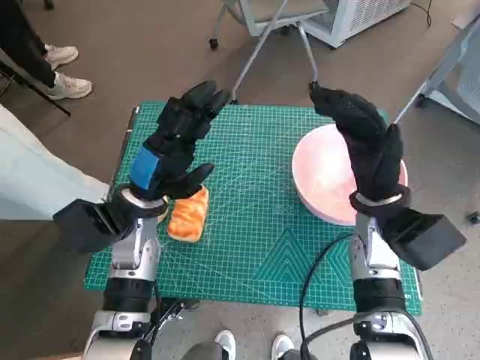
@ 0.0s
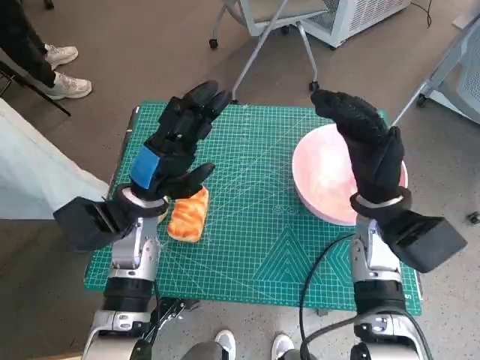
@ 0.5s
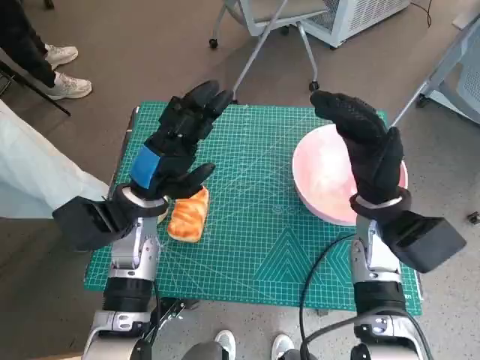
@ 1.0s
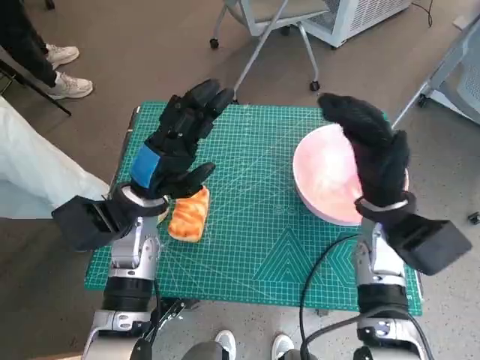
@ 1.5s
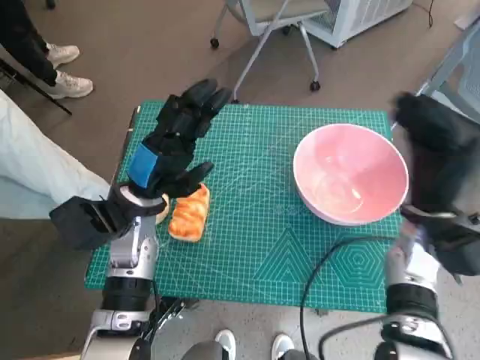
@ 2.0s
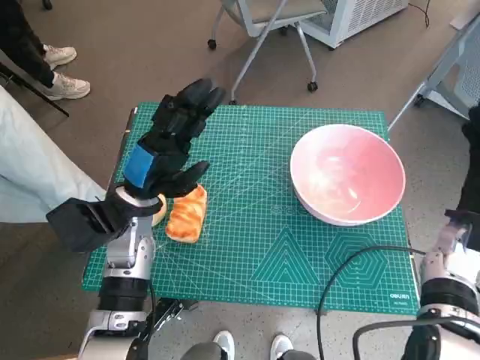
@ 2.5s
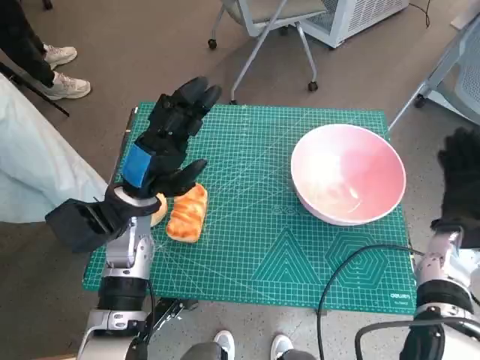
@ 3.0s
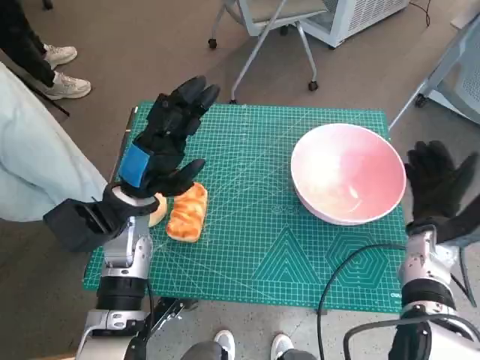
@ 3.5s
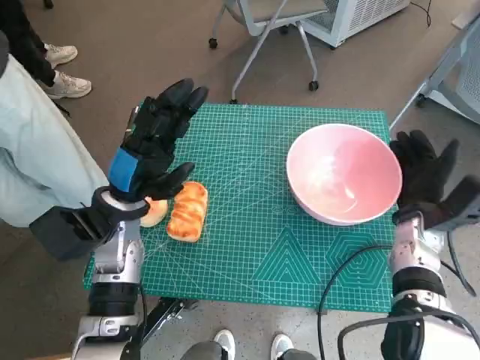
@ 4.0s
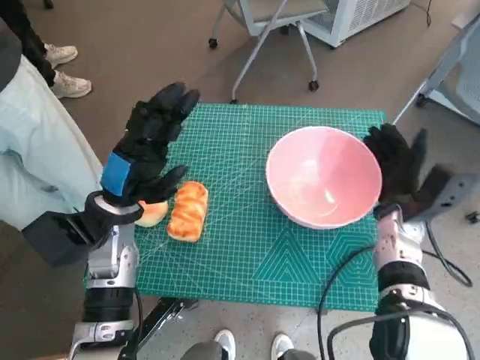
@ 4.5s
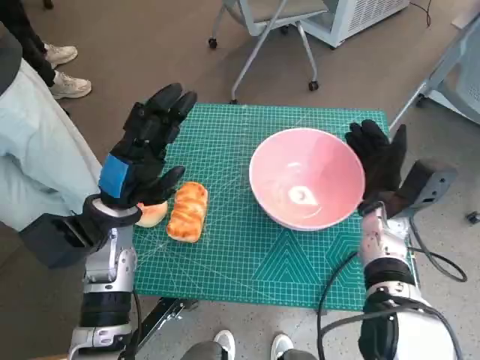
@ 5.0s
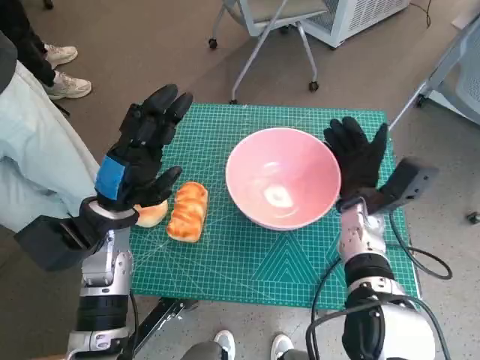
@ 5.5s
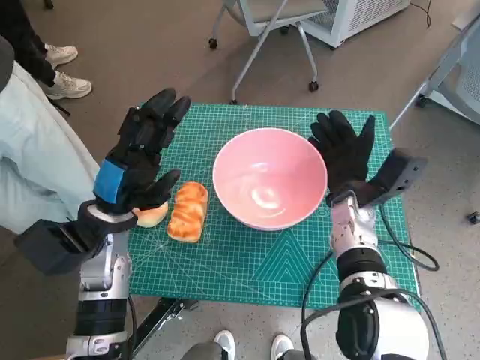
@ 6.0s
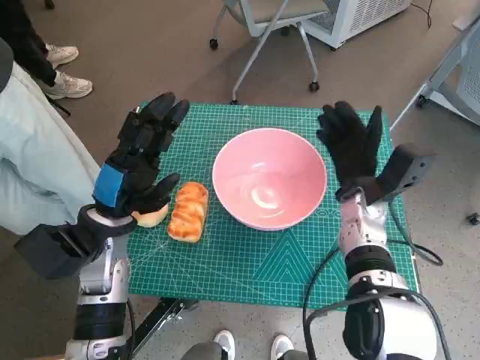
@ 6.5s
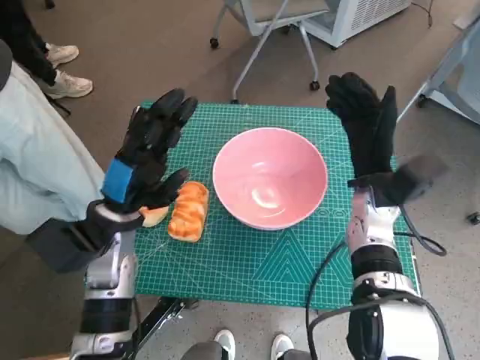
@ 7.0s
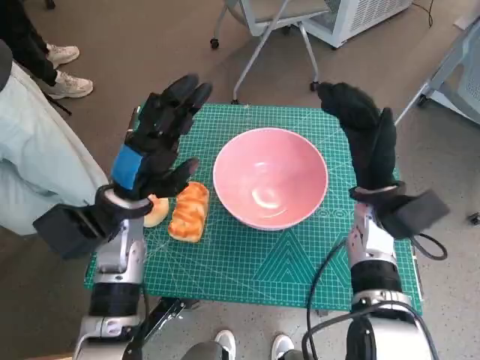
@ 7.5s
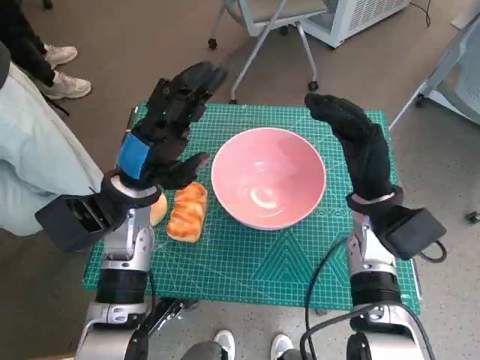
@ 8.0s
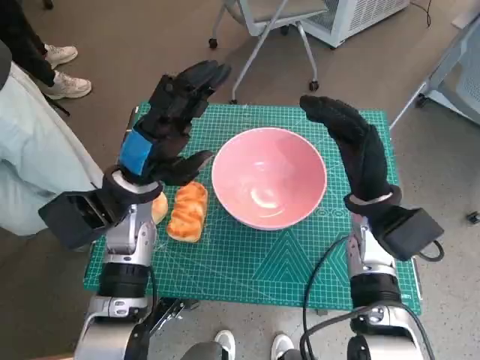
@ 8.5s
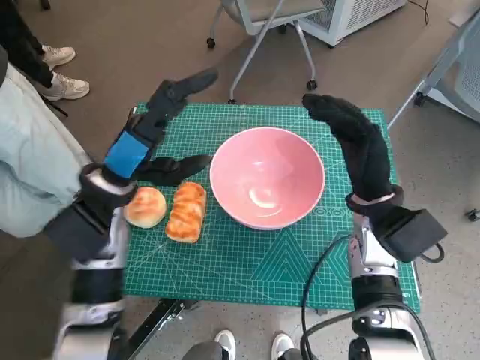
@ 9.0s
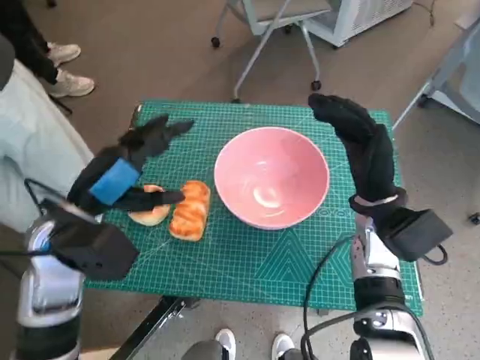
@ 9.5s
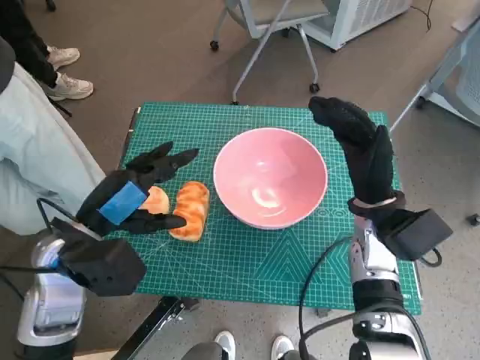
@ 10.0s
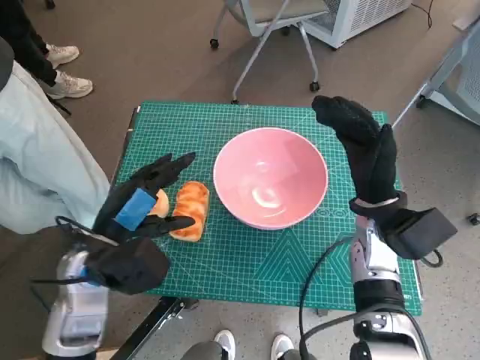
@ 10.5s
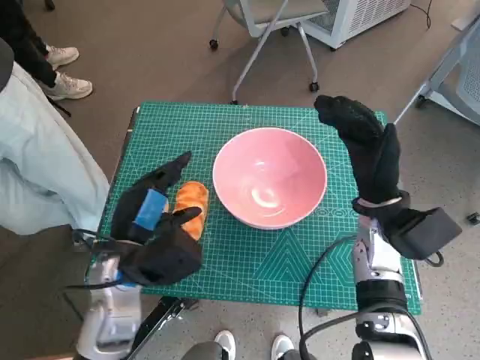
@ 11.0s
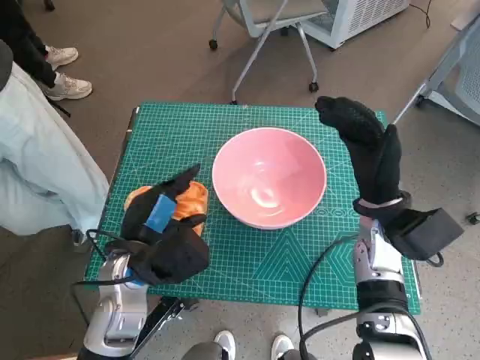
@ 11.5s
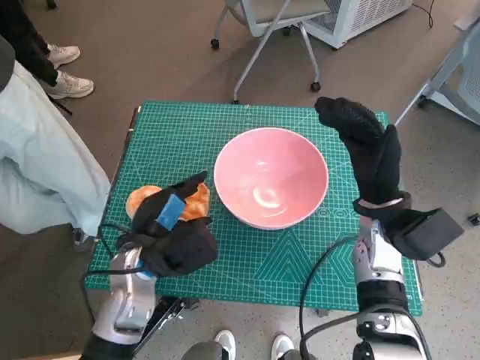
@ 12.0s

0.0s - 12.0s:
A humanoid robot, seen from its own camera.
Task of the whole recording: Push the bowl into the center of the table and put the bread into the bowl.
Step, 0.0s - 7.0s: Move the pink bowl to the center of table with right hand.
2.0s - 4.0s: The right hand moves some 5 cm.
4.0s - 6.0s: The right hand moves to the left, some 10 cm.
6.0s - 8.0s: The right hand changes place by about 5 cm.
8.0s - 10.0s: The left hand shifts roughly 5 cm backward.
10.0s - 12.0s: The left hand moves downward and to the right, about 10 cm.

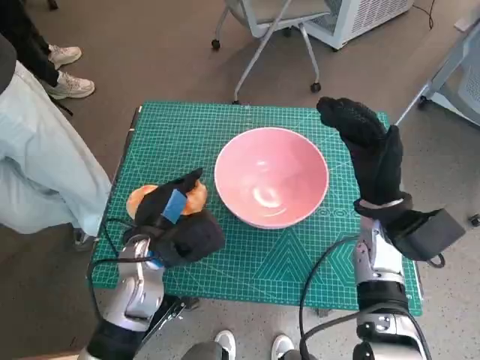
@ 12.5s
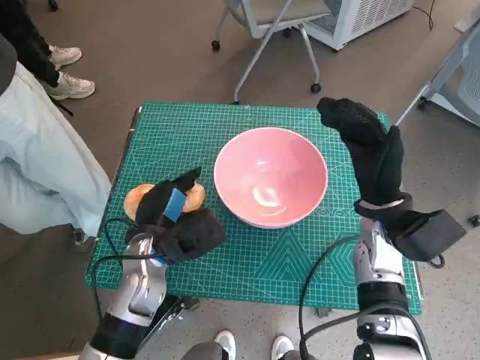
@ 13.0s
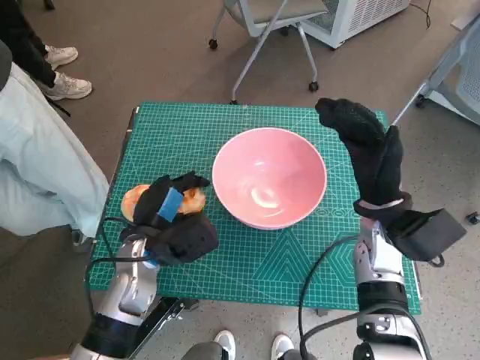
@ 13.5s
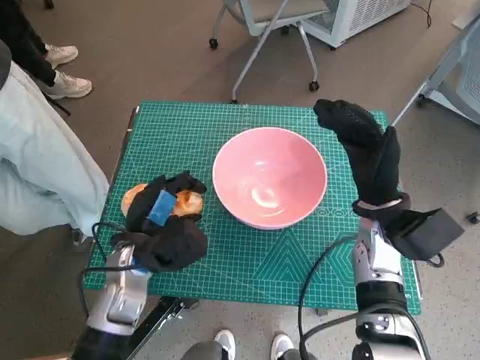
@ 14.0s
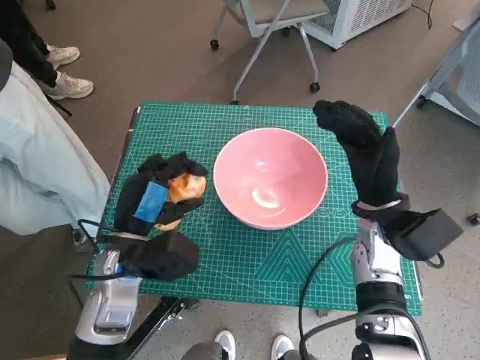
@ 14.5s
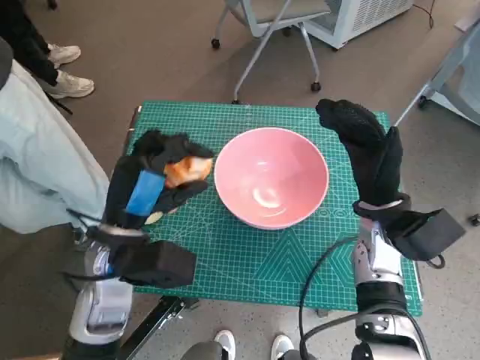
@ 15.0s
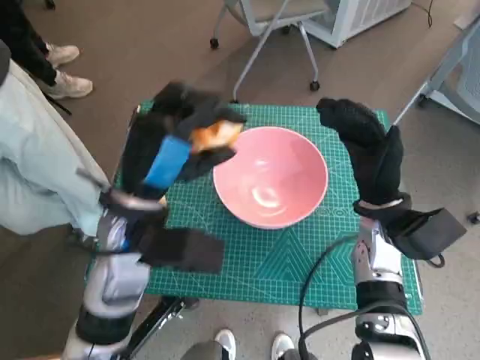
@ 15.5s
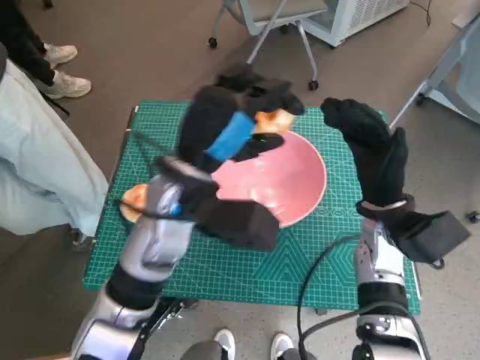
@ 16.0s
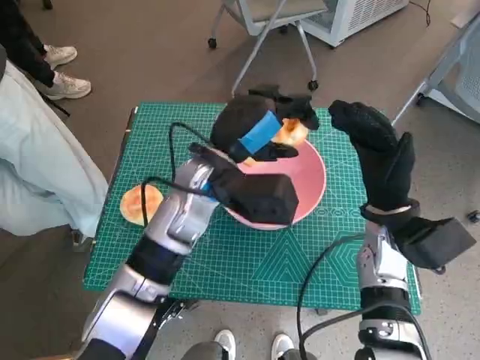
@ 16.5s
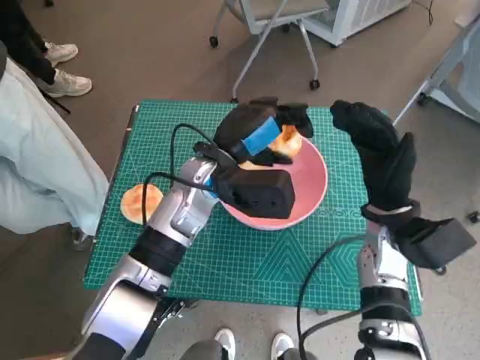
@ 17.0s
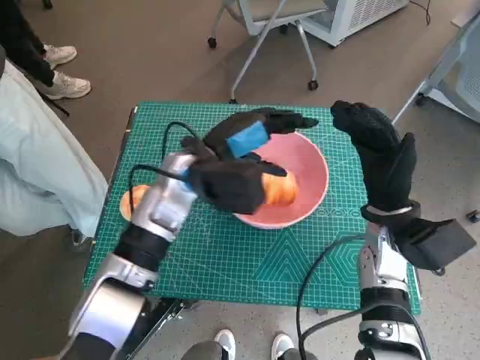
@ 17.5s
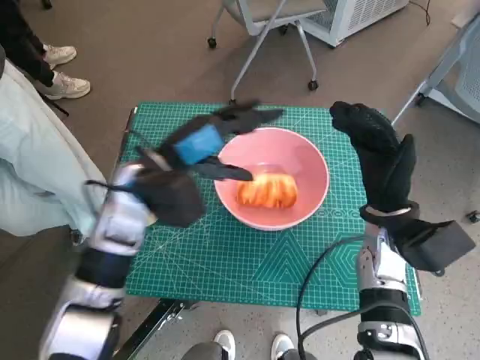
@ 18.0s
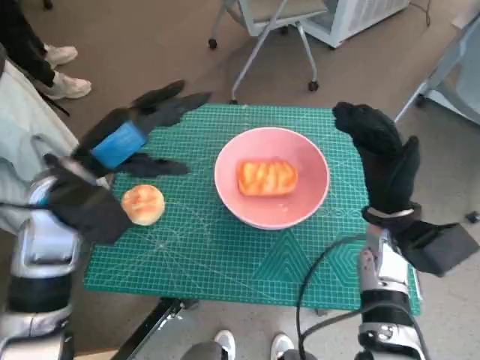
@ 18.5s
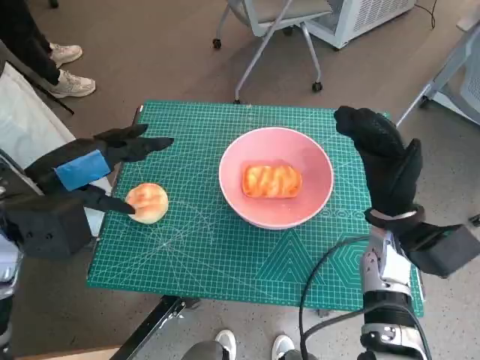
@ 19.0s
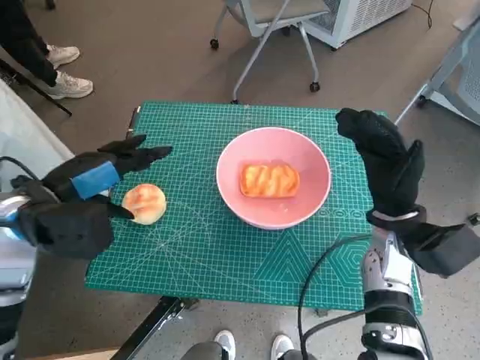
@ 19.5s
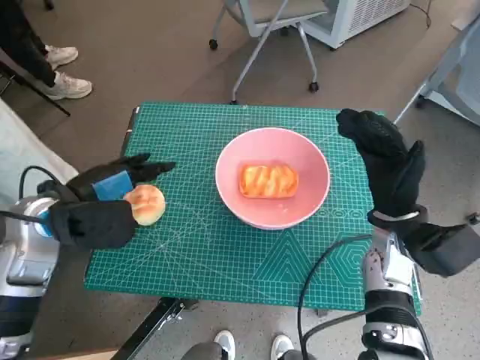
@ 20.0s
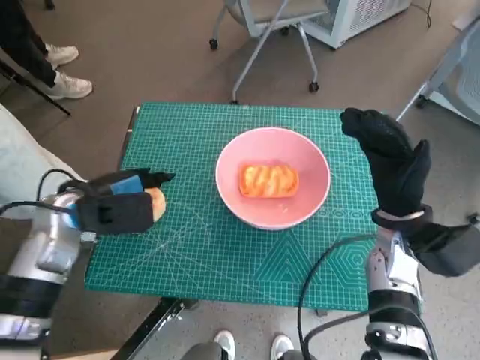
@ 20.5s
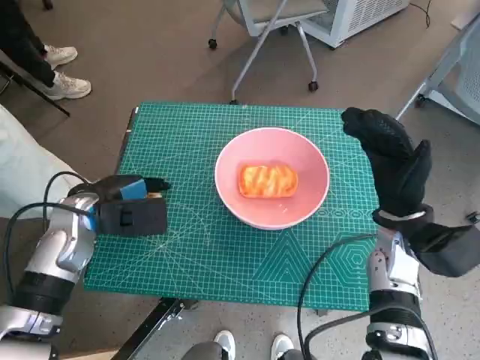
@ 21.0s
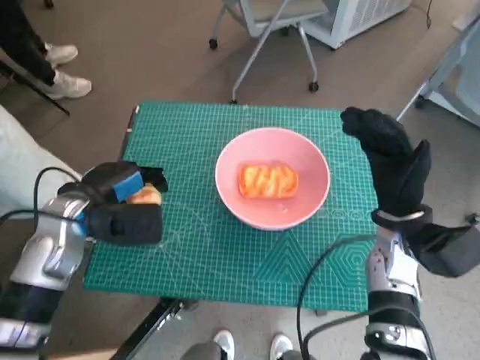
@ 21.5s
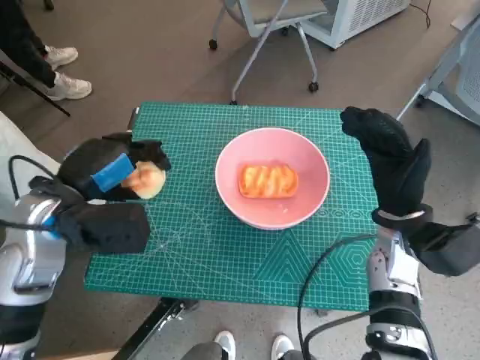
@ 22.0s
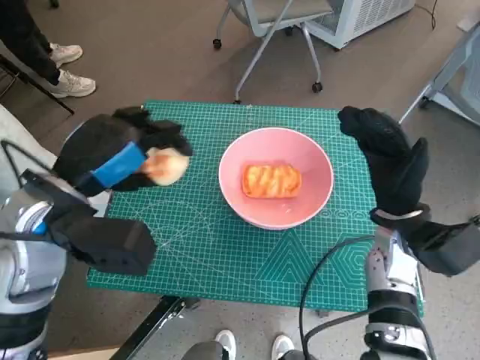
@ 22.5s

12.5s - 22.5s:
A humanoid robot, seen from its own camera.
Task of the whole recording: Push the bowl into the center of the table and put the bread into the bowl.
Step, 14.0s - 17.5s: Place the long bread in pink bowl with left hand.
Step, 18.0s - 21.0s: Grasp the round bread with left hand.
14.5s - 16.5s: The left hand moves to the right, forward and upward, roughly 15 cm.
16.5s - 18.5s: The left hand goes about 15 cm to the left.
18.5s - 20.5s: The left hand travels downward by about 5 cm.
20.5s - 22.5s: The left hand travels upward by approximately 10 cm.

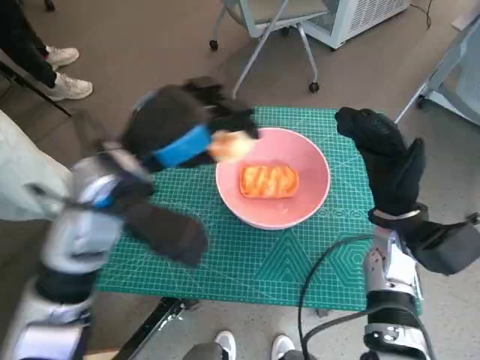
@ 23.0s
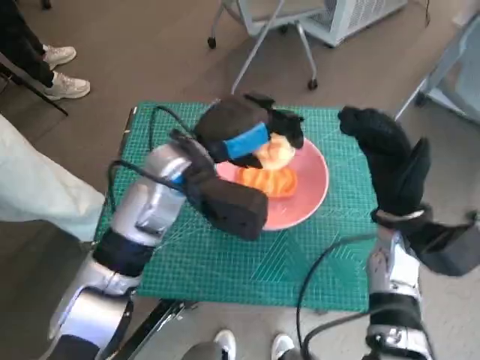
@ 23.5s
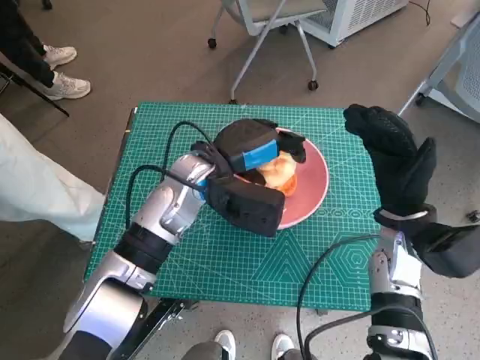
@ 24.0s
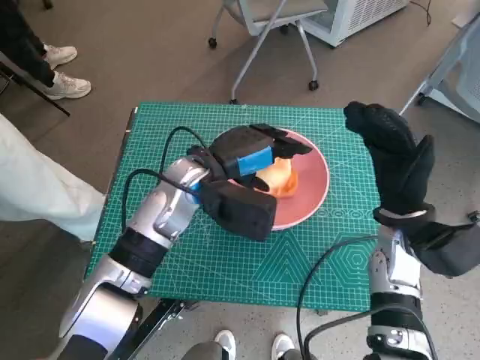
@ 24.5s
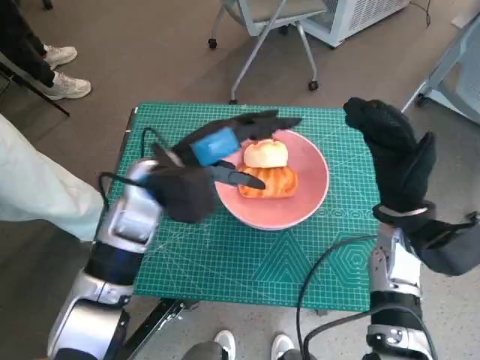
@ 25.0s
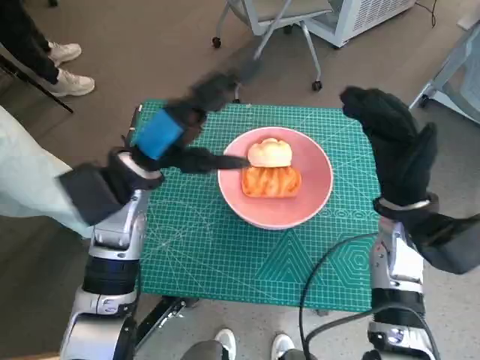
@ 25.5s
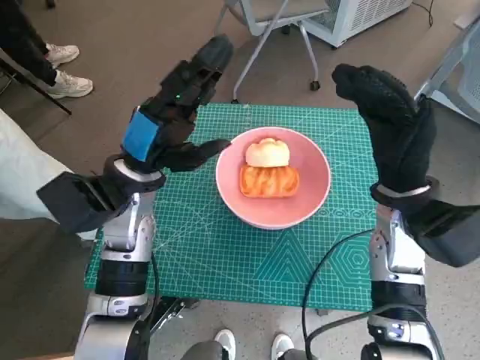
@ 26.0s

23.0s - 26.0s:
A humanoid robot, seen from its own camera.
Task of the whole recording: Push the bowl into the center of the table and put the bread into the bowl.
Step, 23.0s - 25.0s: Place the round bread in pink bowl with left hand.
23.0s - 24.5s: The left hand goes roughly 10 cm downward, to the right and forward.
24.5s - 26.0s: The right hand changes place by some 5 cm. The left hand heads to the left, covering about 10 cm.
